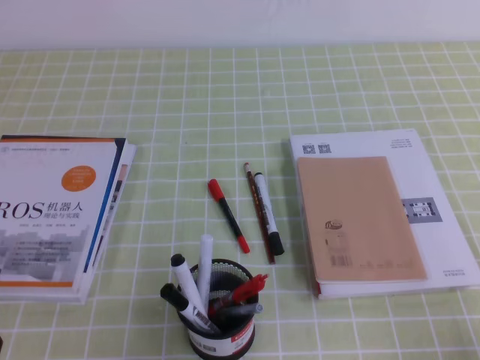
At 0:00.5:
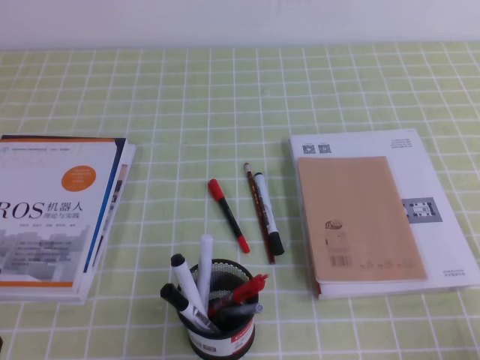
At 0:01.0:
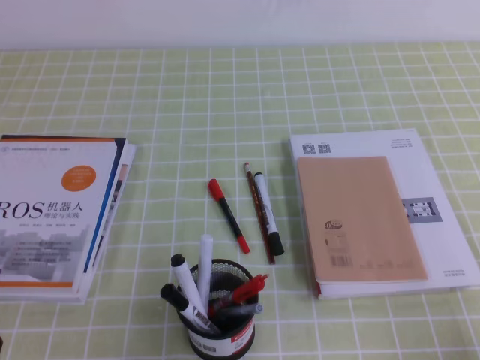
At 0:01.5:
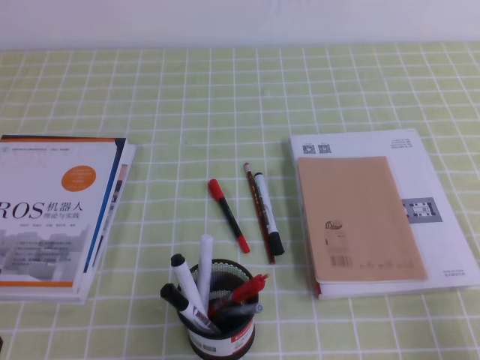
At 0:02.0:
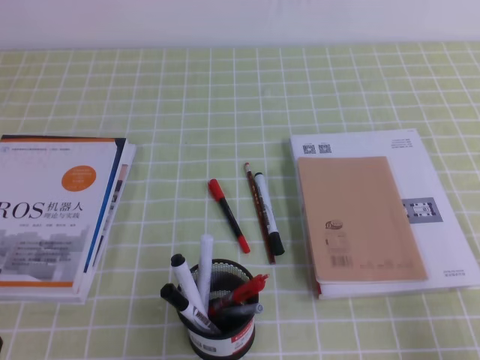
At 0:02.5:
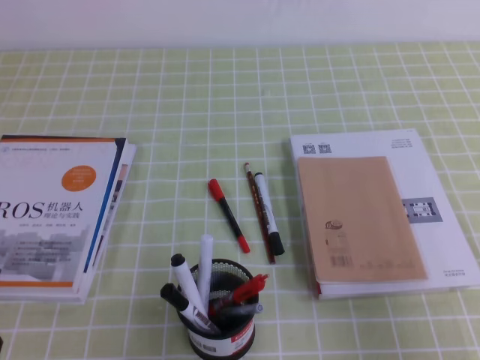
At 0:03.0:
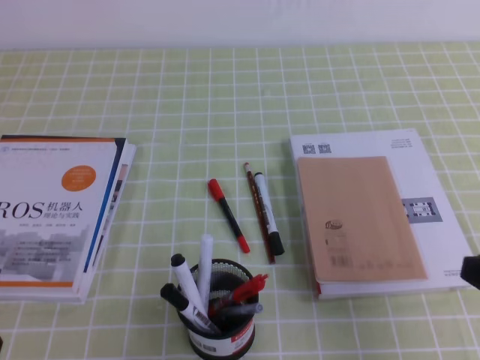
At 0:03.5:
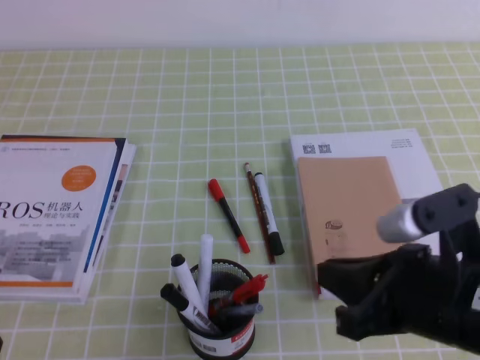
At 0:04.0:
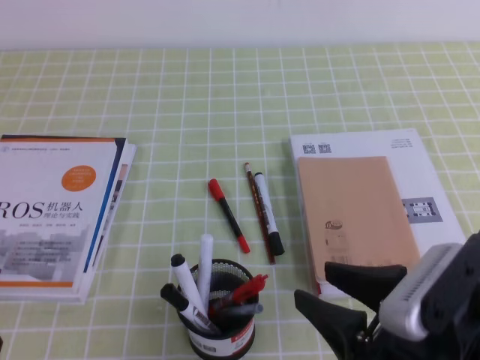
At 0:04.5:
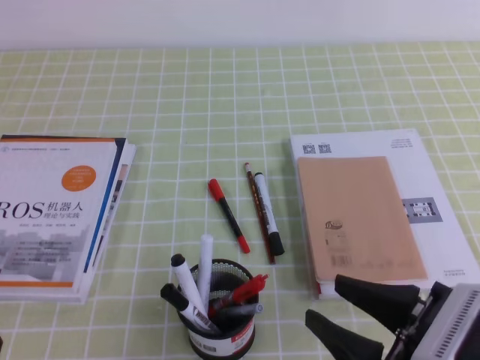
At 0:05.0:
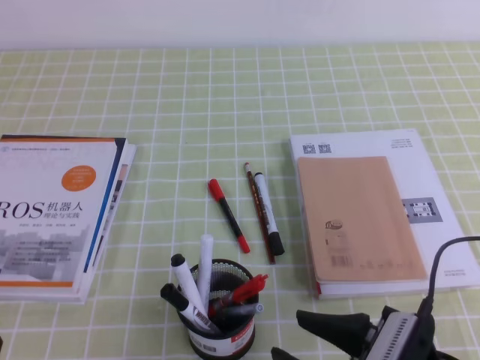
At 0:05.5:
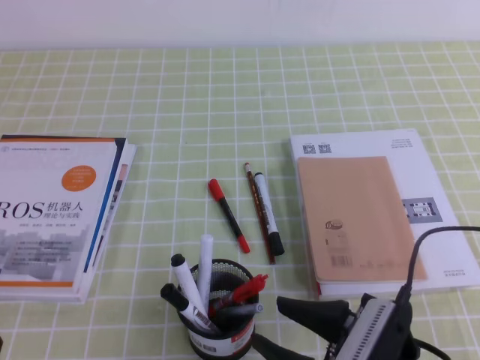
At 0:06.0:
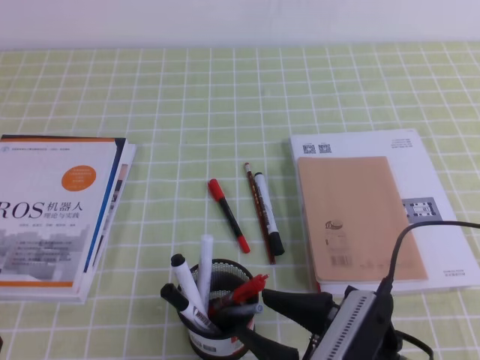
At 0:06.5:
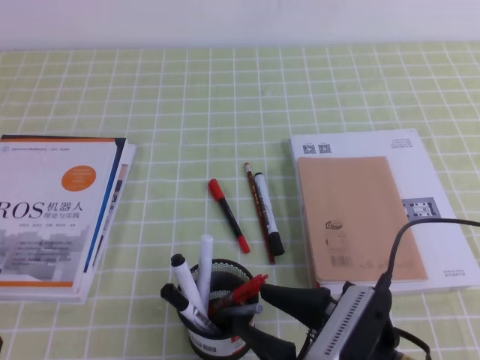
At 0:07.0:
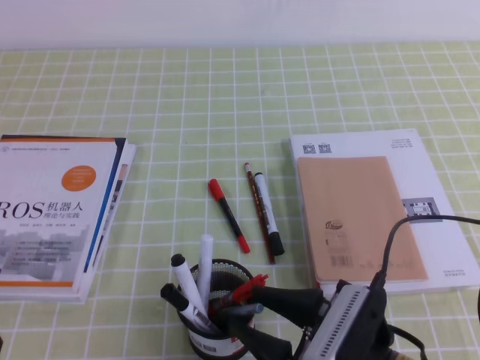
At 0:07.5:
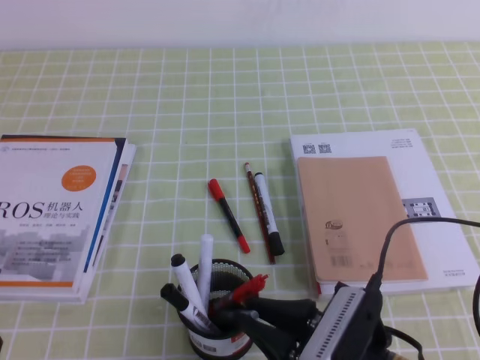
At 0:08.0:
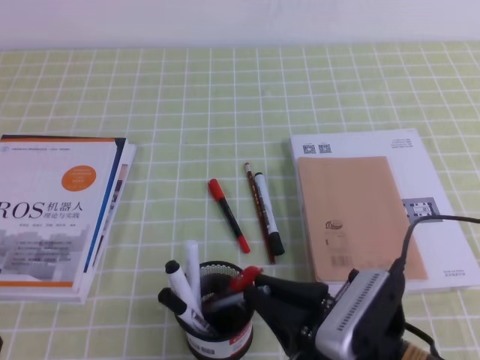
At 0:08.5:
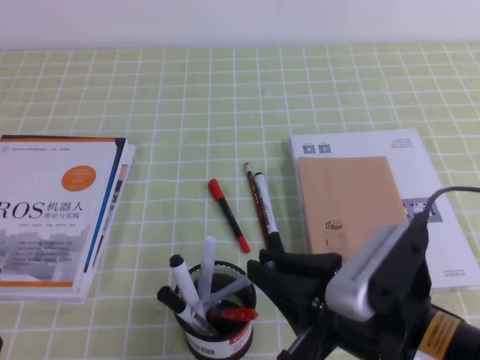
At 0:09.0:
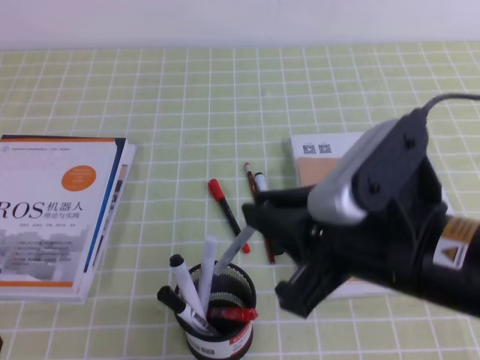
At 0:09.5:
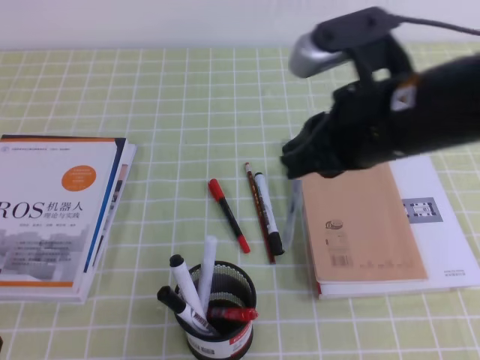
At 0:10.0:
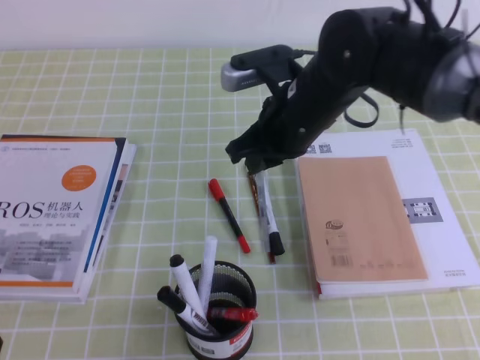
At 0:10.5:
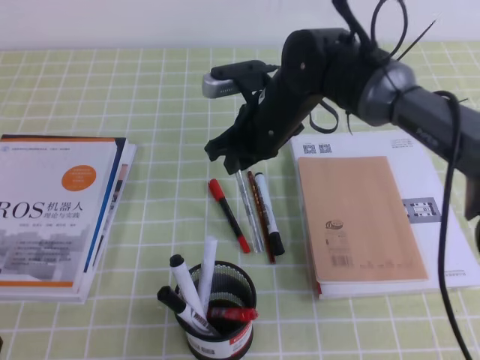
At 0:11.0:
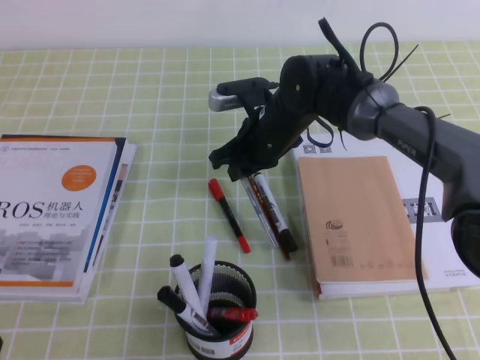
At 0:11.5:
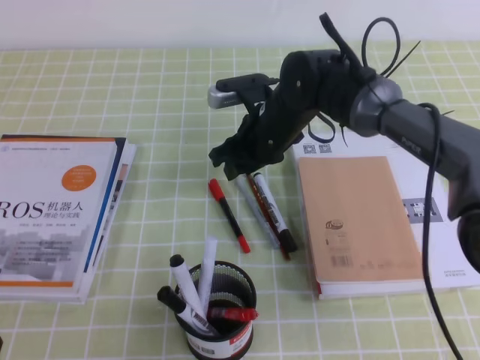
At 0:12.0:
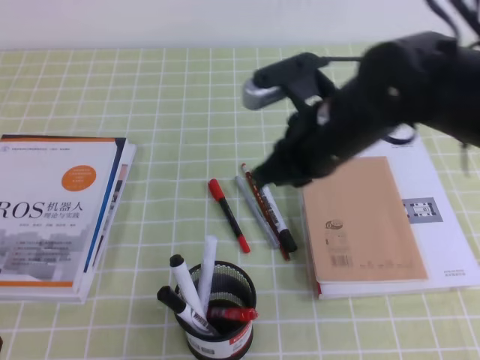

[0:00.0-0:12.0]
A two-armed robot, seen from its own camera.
0:02.0 to 0:04.0: The right gripper heads to the left, covering some 15 cm, and opens its fingers.
0:04.0 to 0:06.0: The right gripper shifts about 10 cm downward.
0:06.0 to 0:08.0: The right gripper closes its fingers.
0:08.0 to 0:10.0: The right gripper is displaced forward and upward by approximately 25 cm.
0:10.0 to 0:12.0: The right gripper reaches about 10 cm forward, then returns, and opens and closes again.

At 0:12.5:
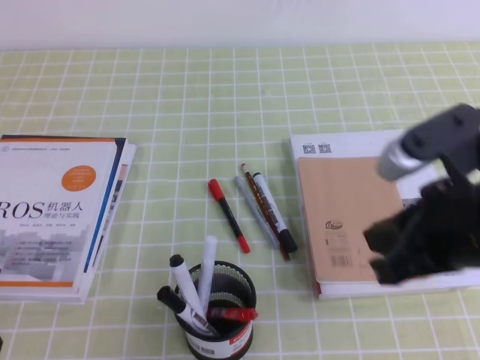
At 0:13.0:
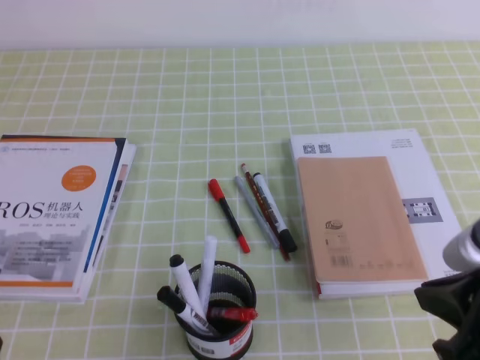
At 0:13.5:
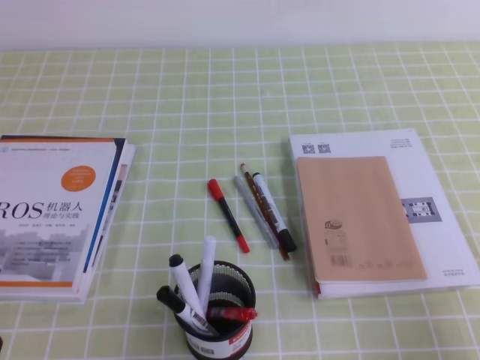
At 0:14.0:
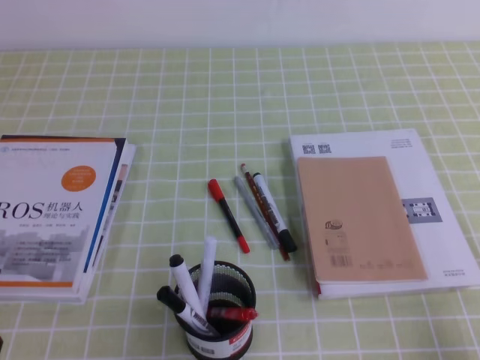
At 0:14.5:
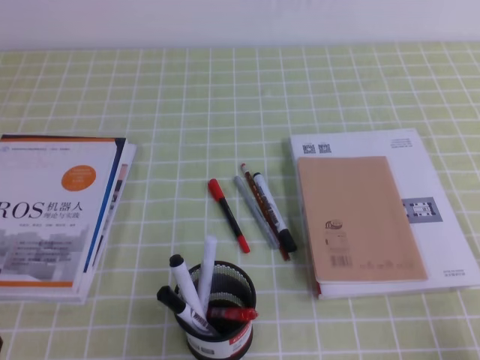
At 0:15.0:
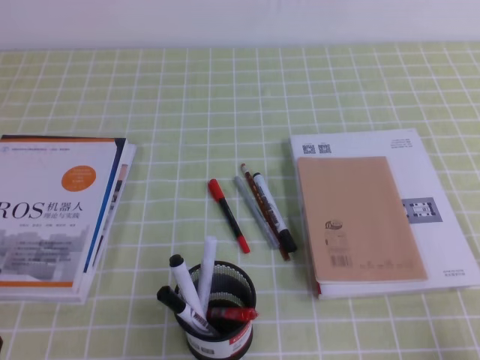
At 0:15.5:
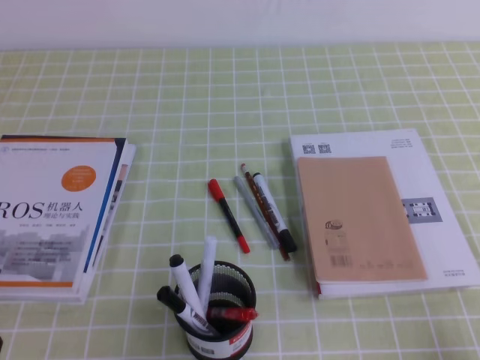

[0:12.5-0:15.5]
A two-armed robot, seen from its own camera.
Step, 0:12.5 to 0:15.5: Pick up the pen from the pen holder.
0:12.5 to 0:14.0: The right gripper shifts about 25 cm to the right, downward and backward.
